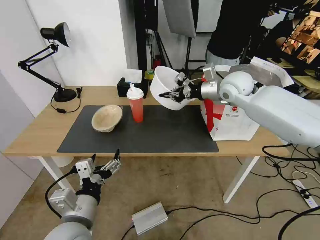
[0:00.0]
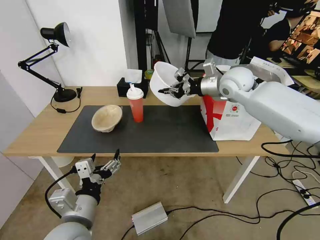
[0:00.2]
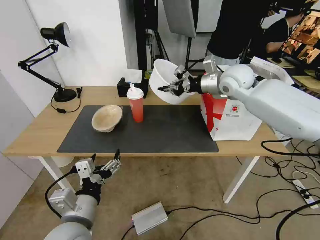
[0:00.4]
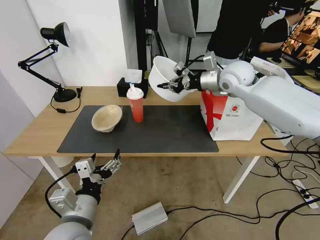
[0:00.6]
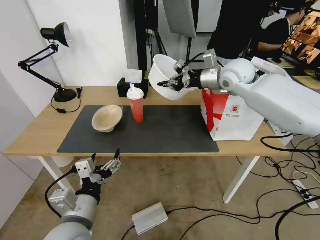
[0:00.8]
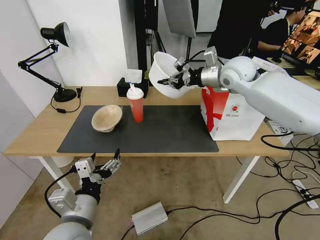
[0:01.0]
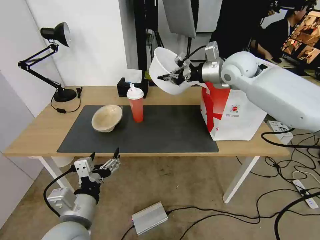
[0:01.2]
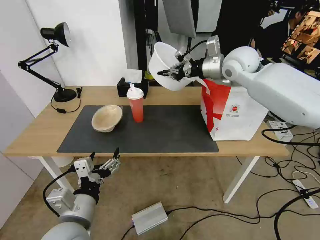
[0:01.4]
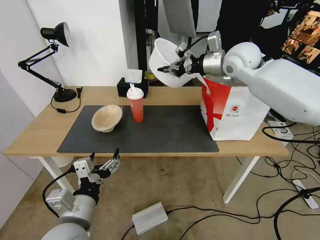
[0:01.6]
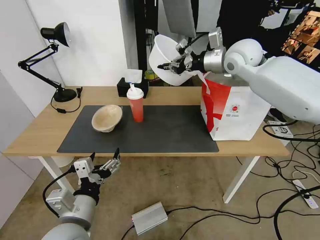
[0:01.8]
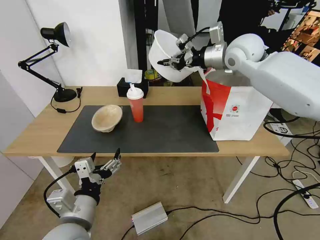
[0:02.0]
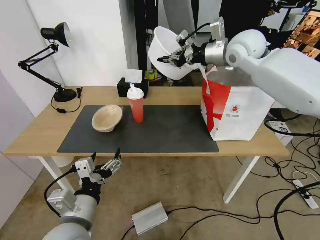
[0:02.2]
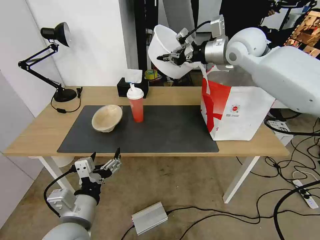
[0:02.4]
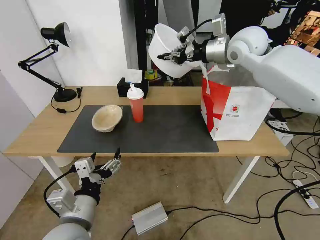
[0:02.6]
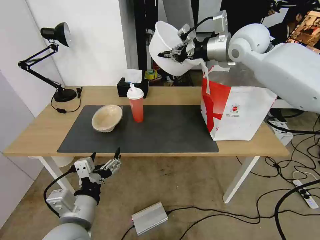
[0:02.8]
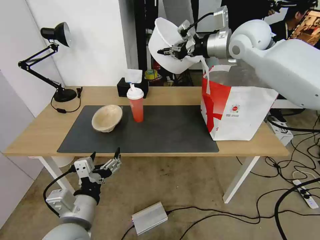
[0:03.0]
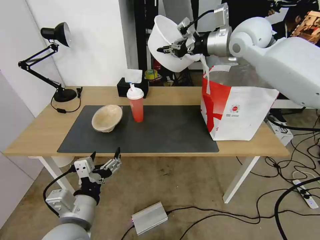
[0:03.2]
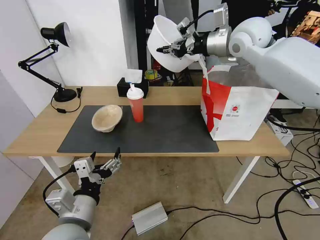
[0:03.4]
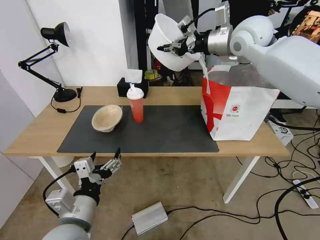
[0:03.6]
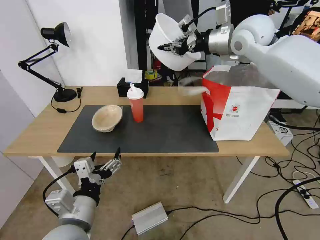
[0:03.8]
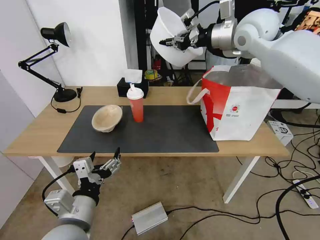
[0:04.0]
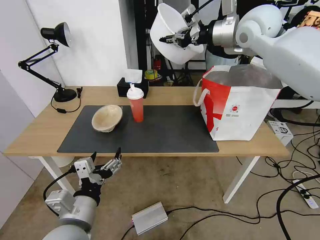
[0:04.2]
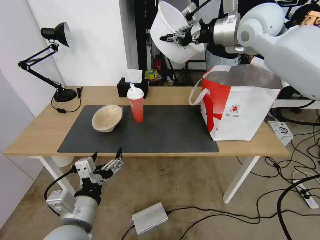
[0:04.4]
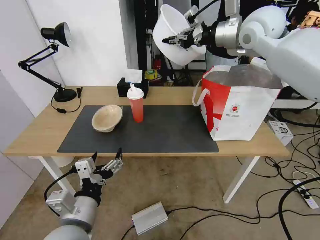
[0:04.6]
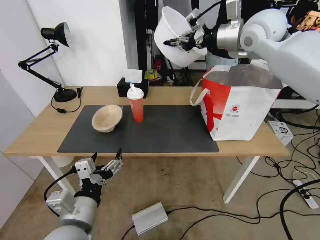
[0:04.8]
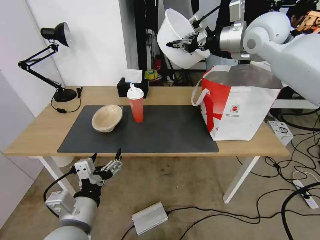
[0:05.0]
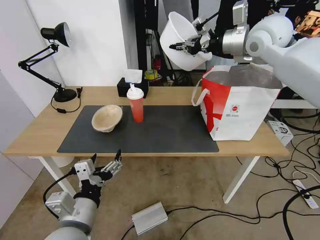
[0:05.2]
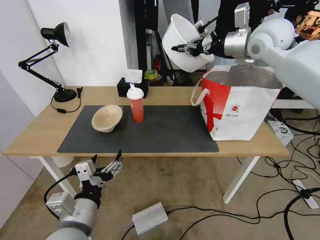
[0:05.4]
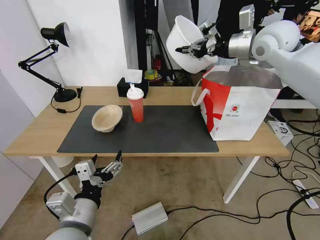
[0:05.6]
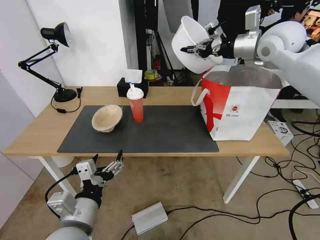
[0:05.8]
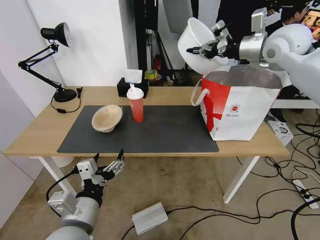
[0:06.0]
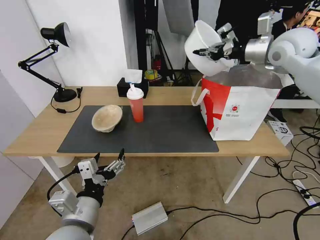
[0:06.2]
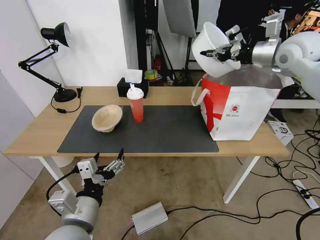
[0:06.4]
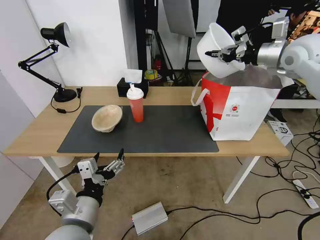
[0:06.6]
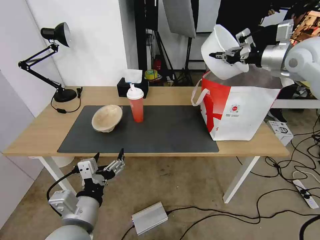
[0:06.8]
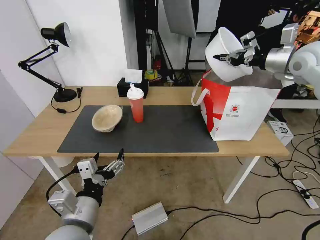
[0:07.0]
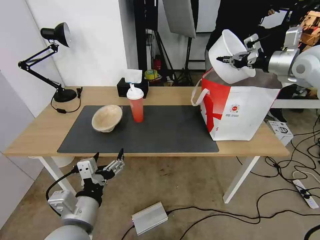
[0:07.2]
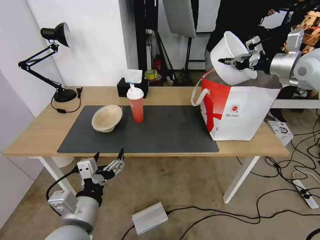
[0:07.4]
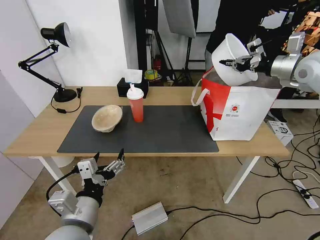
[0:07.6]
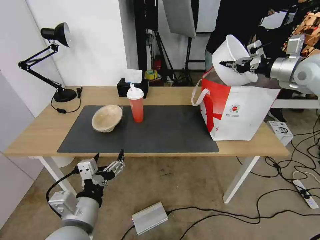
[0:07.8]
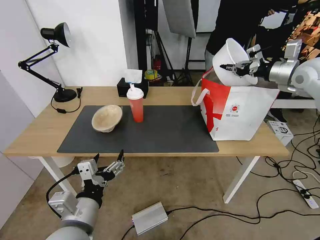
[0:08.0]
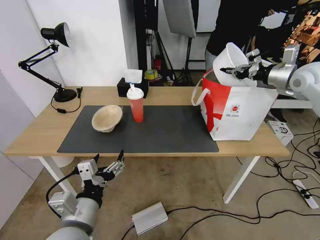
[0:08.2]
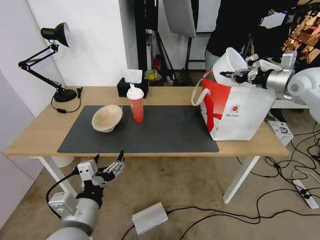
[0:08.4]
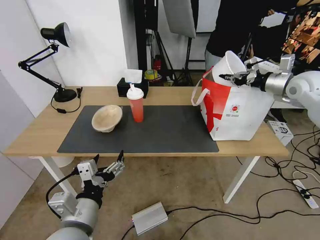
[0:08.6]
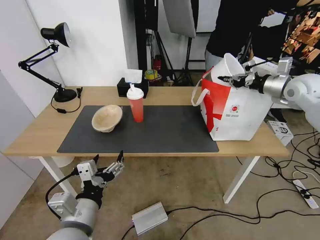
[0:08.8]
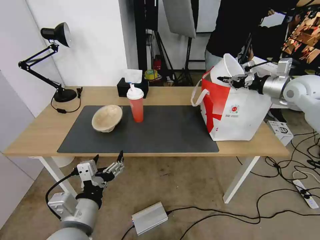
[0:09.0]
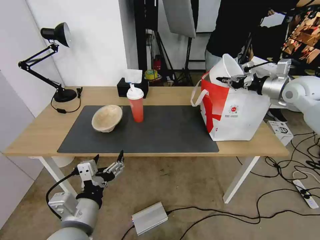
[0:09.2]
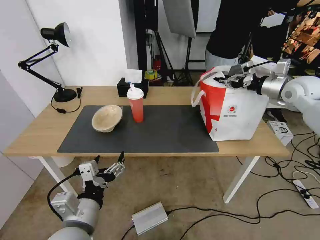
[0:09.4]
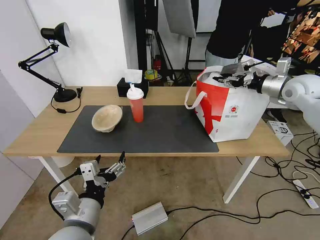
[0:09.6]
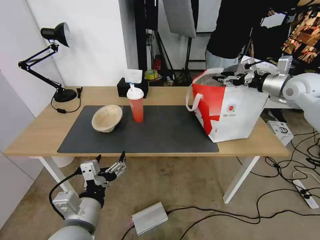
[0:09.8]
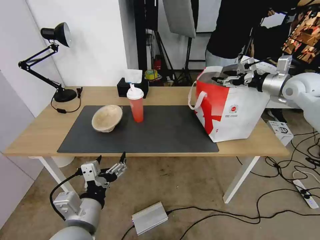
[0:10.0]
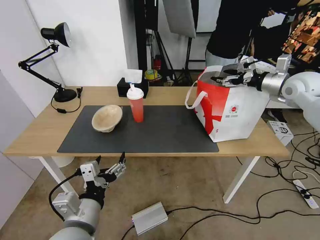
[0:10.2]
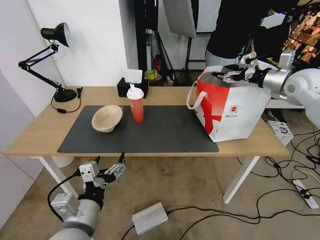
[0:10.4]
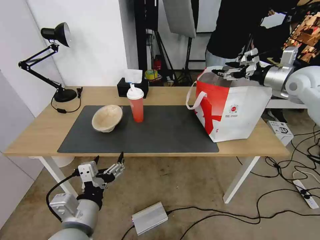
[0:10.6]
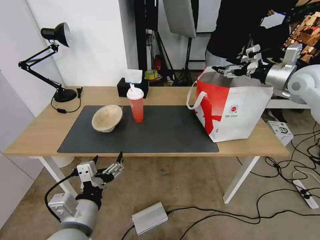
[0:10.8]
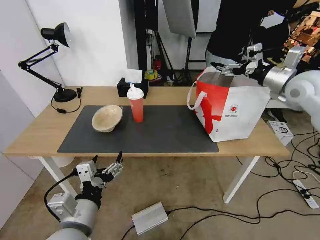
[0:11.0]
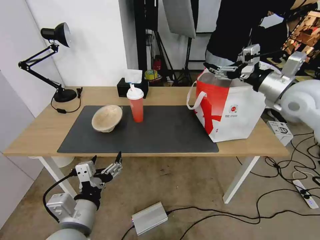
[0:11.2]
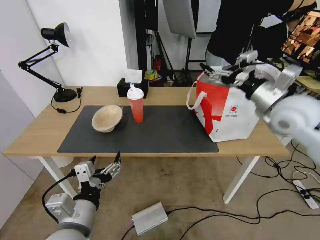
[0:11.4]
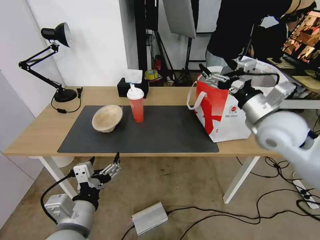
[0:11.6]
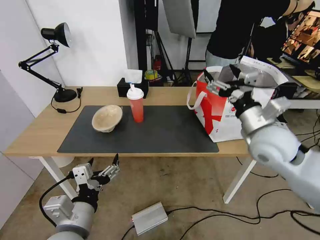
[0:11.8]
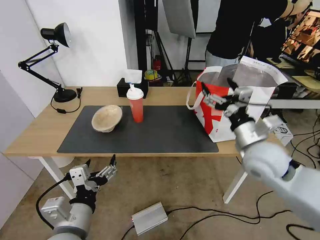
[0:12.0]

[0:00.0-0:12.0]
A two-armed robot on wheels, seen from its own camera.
Task of the whole recording: Pick up the trash from the table and place it into the takeout bag.
0:00.0 to 0:01.6: The right gripper heads upward, covering some 5 cm.
0:01.6 to 0:03.0: The right gripper travels upward by about 5 cm.
0:03.0 to 0:04.4: The grippers stay close to where they were, moving slightly.
0:04.4 to 0:06.0: The right gripper heads to the right, covering approximately 10 cm.
0:06.0 to 0:07.6: The right gripper goes roughly 10 cm to the right and downward.
0:07.6 to 0:09.0: The right gripper moves downward, roughly 5 cm.
0:09.0 to 0:10.4: The right gripper opens.
0:10.4 to 0:12.0: The right gripper is displaced backward, to the left and downward by approximately 30 cm.

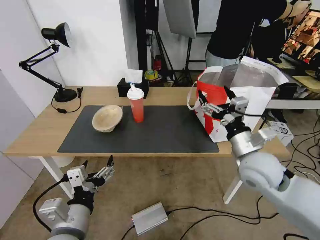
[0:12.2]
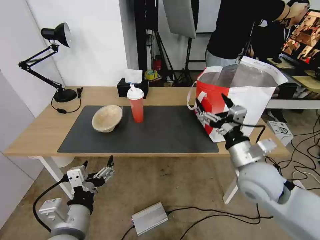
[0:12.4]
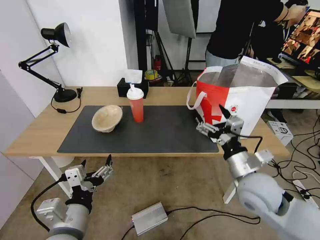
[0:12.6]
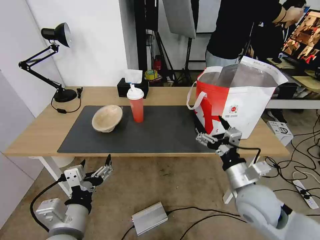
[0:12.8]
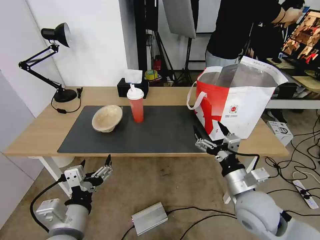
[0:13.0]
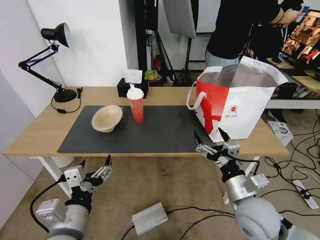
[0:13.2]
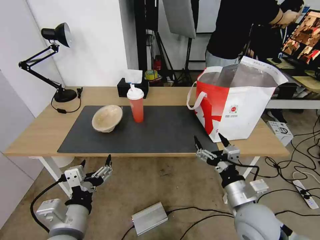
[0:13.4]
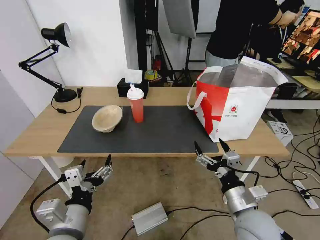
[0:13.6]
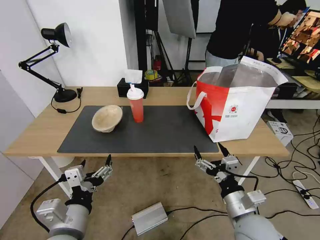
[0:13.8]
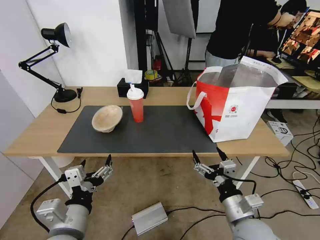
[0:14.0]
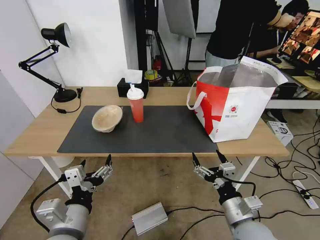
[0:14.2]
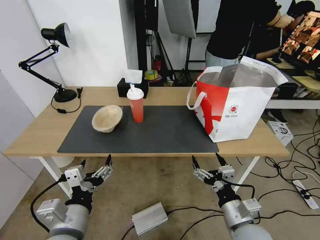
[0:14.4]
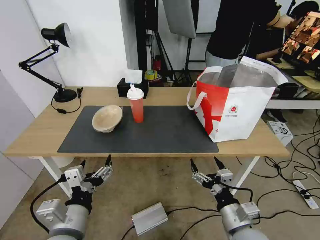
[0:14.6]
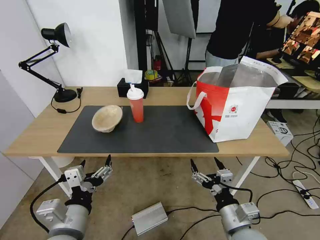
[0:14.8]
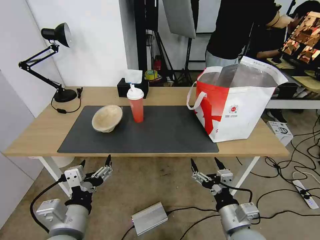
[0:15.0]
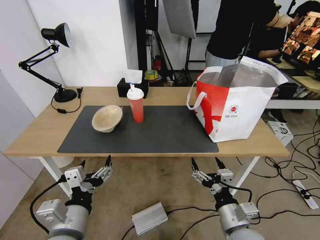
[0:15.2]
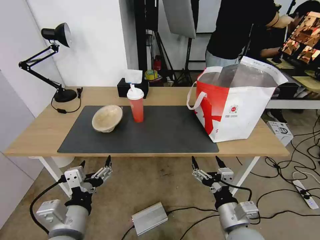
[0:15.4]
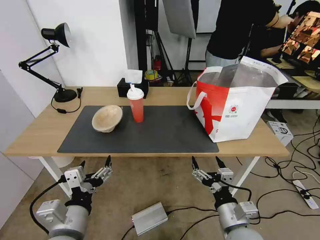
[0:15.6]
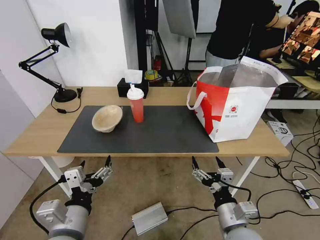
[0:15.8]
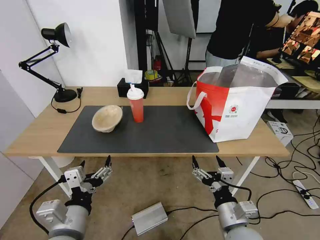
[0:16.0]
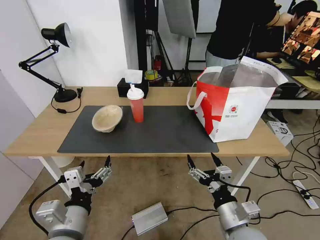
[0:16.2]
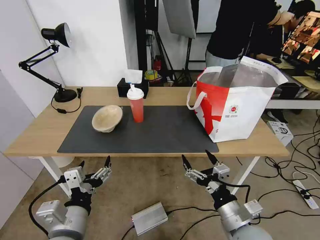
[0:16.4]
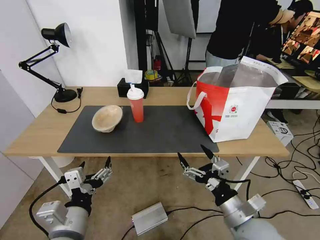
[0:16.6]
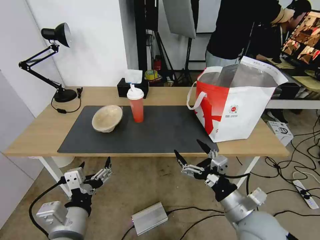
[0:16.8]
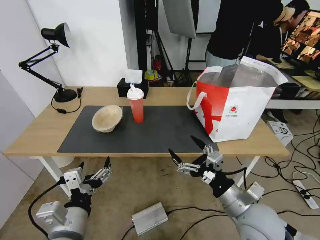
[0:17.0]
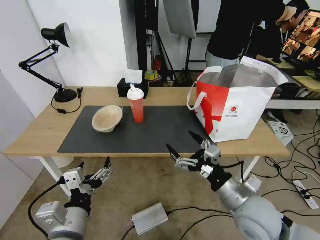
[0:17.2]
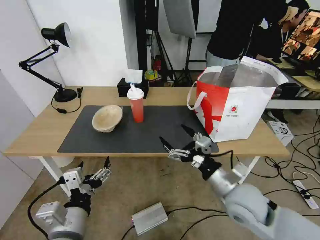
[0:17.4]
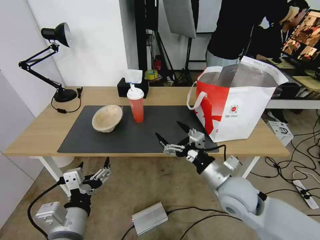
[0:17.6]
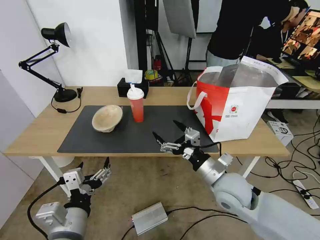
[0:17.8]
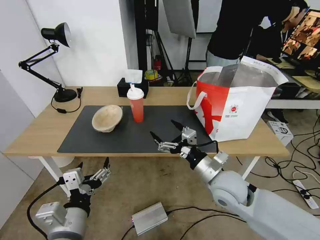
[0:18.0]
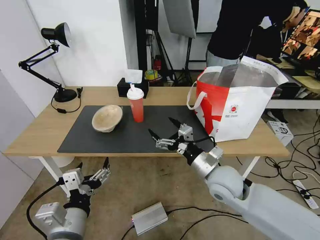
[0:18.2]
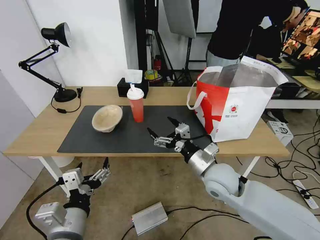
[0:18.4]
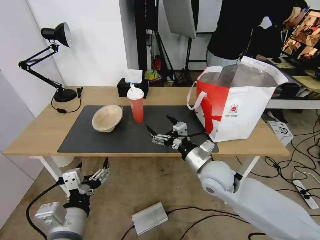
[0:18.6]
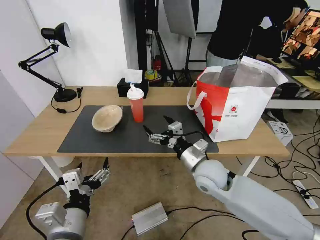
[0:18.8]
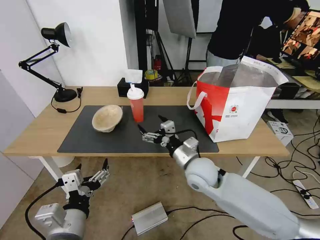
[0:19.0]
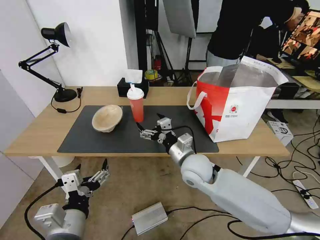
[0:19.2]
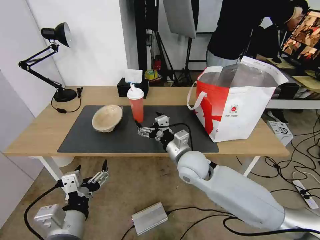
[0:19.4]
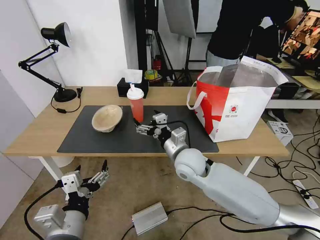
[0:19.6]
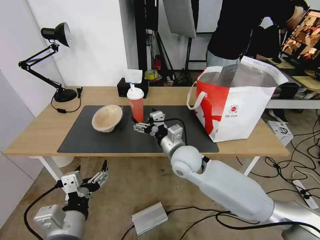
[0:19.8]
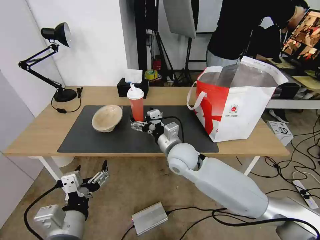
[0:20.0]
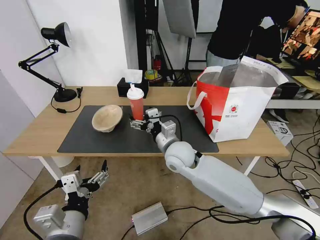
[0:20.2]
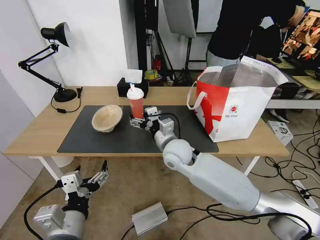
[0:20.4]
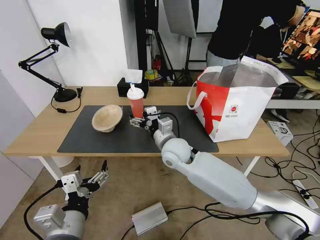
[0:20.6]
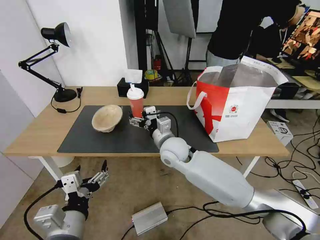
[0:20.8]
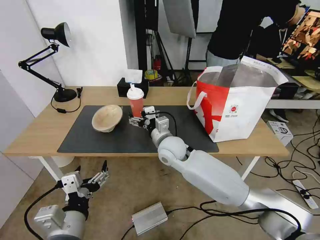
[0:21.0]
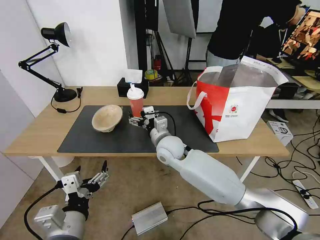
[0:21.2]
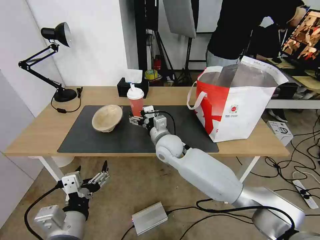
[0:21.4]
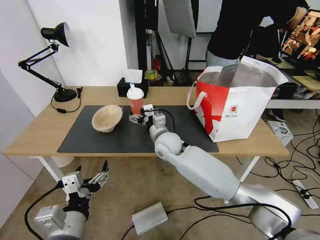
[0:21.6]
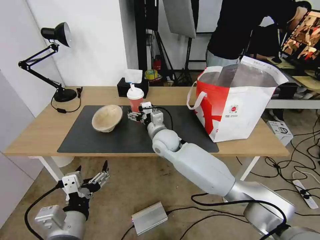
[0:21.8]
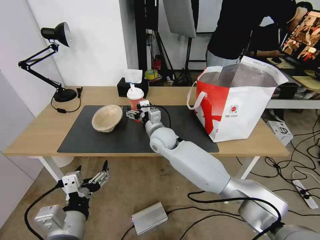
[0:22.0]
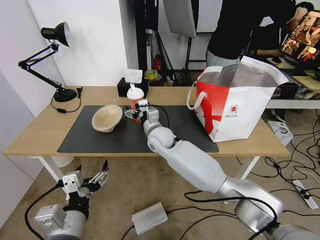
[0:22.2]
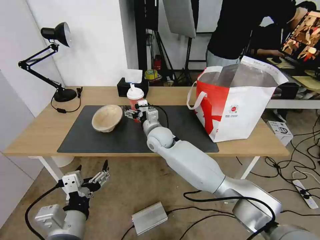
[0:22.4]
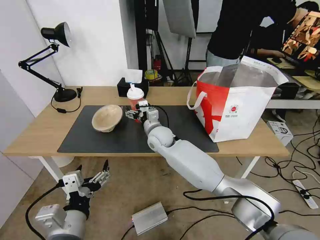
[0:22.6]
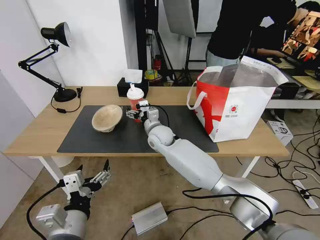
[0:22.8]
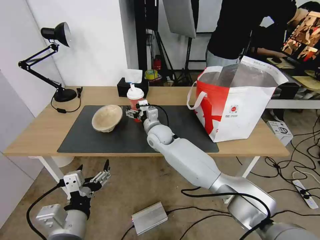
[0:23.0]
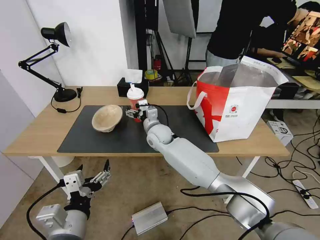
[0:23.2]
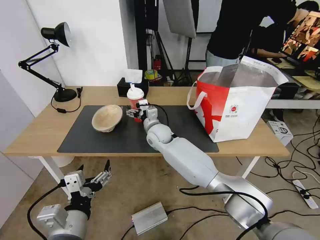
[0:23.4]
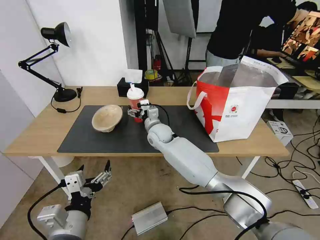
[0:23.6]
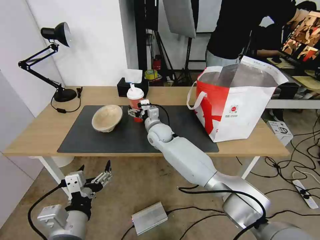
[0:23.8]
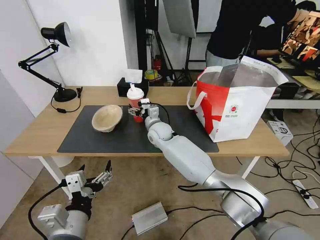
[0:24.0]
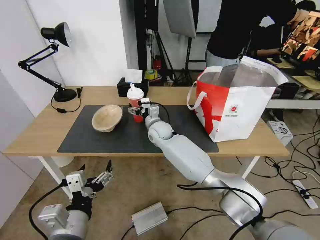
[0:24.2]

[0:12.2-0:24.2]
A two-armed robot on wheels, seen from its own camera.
Task of the whole recording: Pick up the trash from the table and place it into the takeout bag.
0:12.2 to 0:13.8: The right gripper shifts approximately 15 cm backward and downward.
0:13.8 to 0:15.2: There are only small adjustments of the grippers.
0:16.6 to 0:18.2: The right gripper shifts some 15 cm forward.
0:18.2 to 0:19.8: The right gripper travels to the left and forward by roughly 15 cm.
0:19.8 to 0:21.2: The right gripper is displaced forward by about 5 cm.
0:21.2 to 0:22.6: The right gripper is displaced forward by about 5 cm.
0:22.6 to 0:24.2: The right gripper shifts by some 5 cm.
